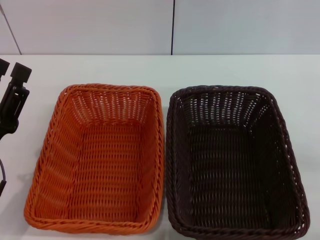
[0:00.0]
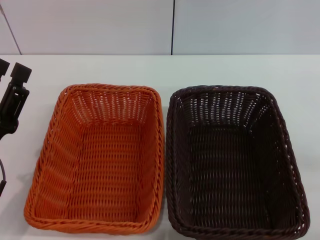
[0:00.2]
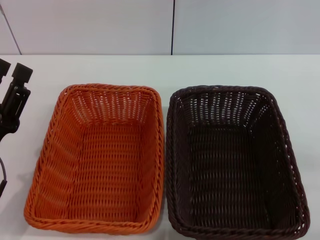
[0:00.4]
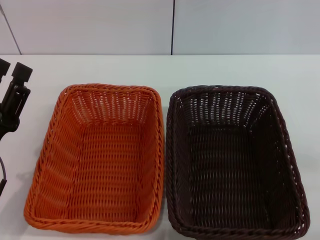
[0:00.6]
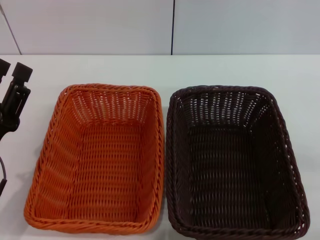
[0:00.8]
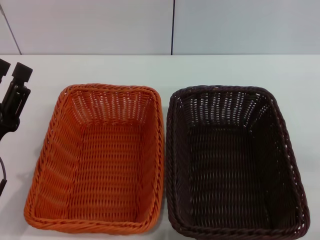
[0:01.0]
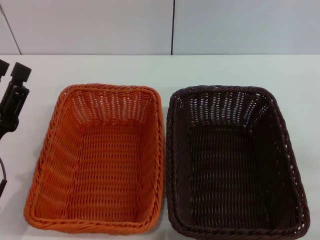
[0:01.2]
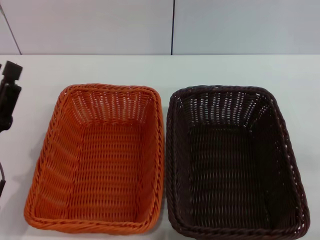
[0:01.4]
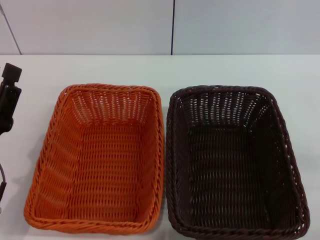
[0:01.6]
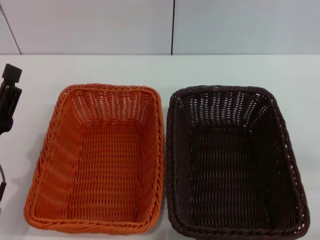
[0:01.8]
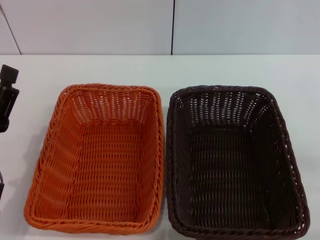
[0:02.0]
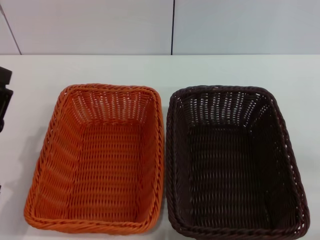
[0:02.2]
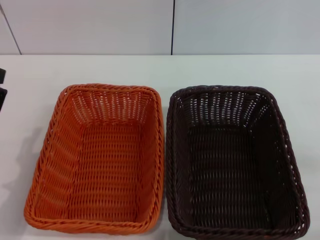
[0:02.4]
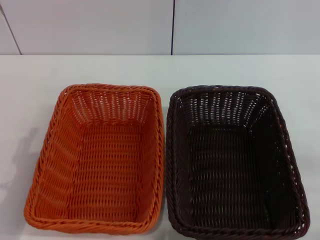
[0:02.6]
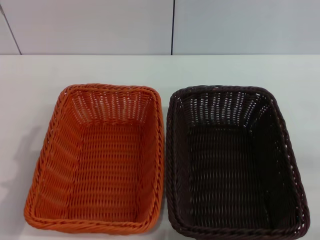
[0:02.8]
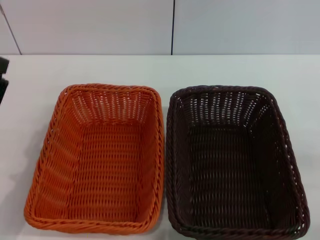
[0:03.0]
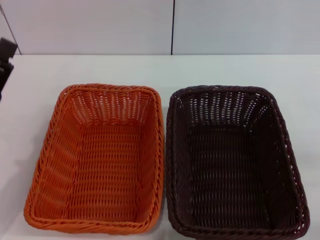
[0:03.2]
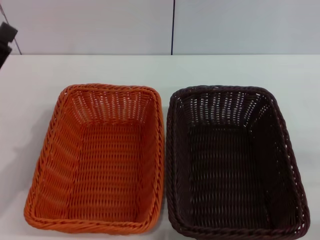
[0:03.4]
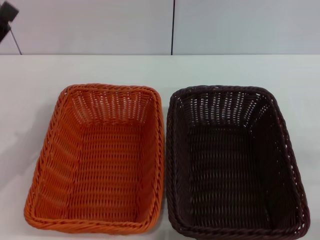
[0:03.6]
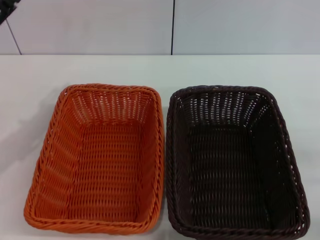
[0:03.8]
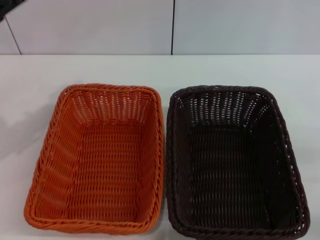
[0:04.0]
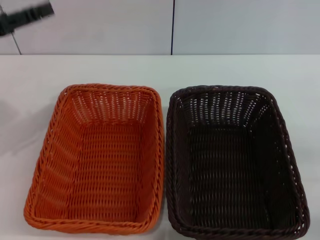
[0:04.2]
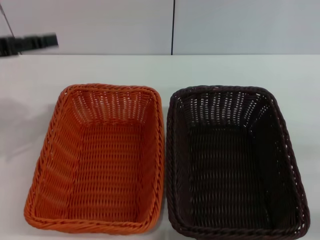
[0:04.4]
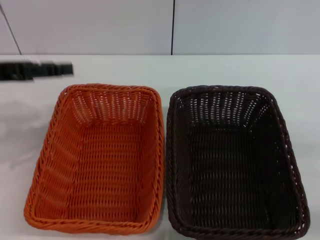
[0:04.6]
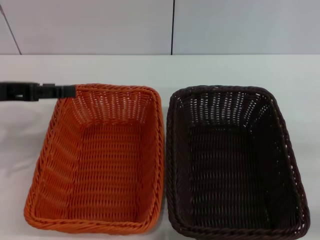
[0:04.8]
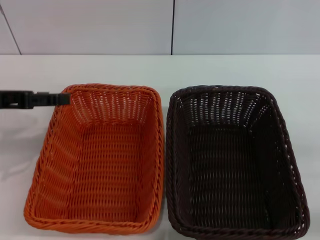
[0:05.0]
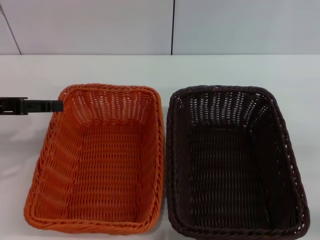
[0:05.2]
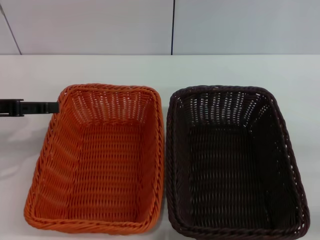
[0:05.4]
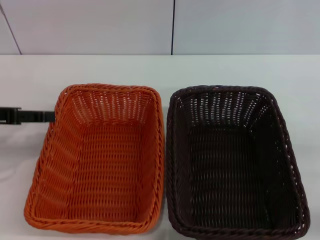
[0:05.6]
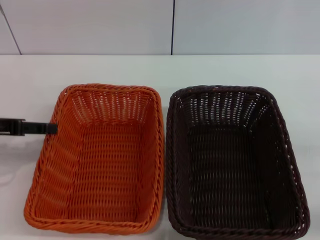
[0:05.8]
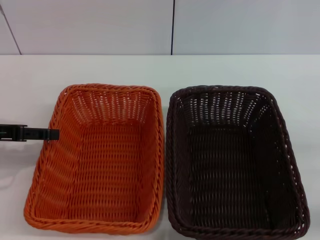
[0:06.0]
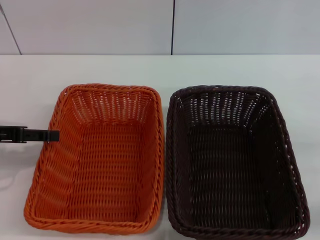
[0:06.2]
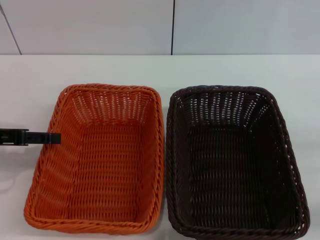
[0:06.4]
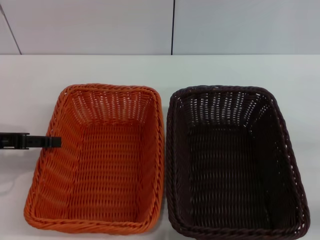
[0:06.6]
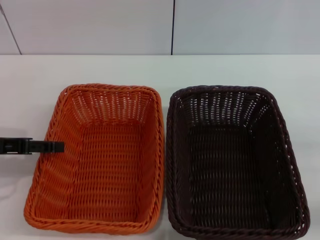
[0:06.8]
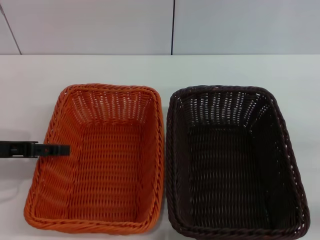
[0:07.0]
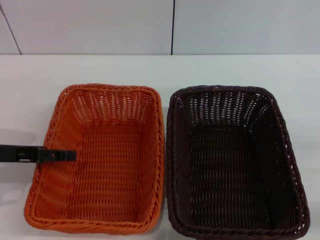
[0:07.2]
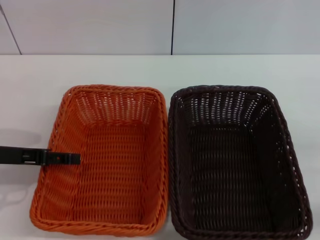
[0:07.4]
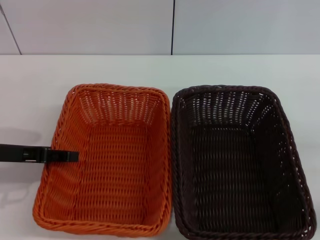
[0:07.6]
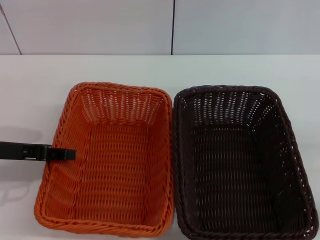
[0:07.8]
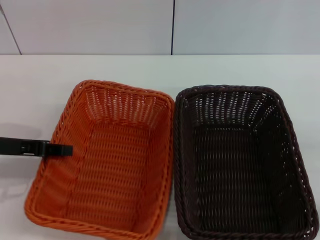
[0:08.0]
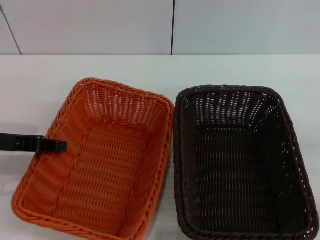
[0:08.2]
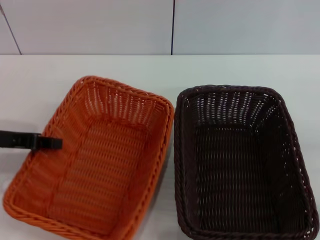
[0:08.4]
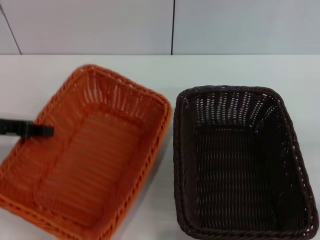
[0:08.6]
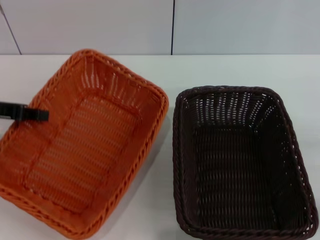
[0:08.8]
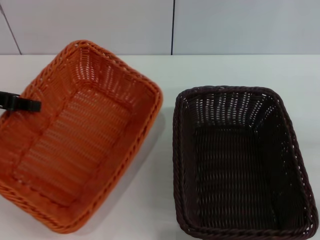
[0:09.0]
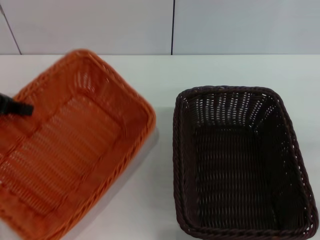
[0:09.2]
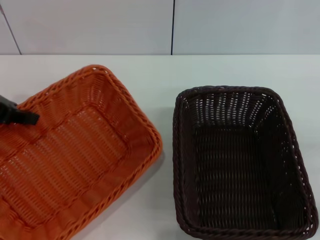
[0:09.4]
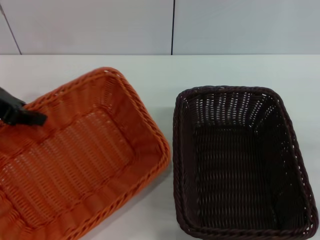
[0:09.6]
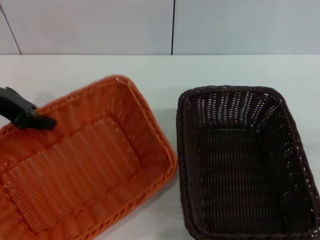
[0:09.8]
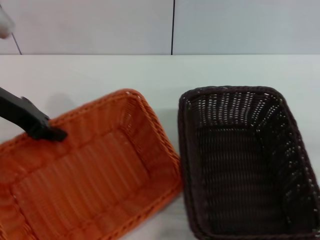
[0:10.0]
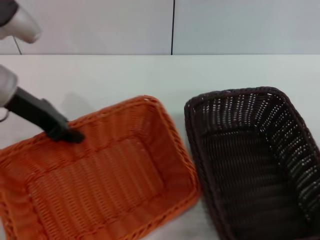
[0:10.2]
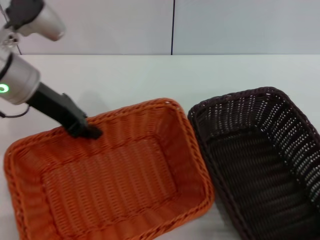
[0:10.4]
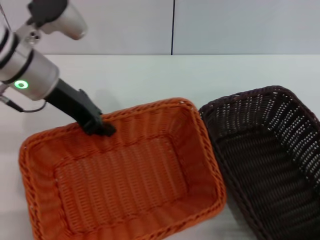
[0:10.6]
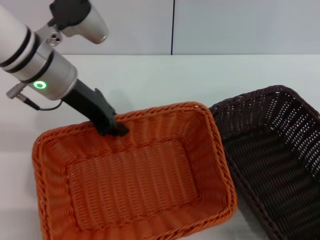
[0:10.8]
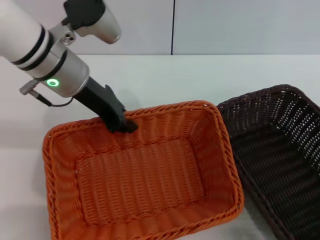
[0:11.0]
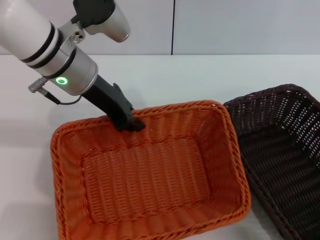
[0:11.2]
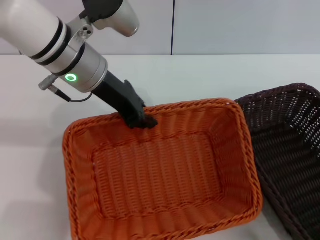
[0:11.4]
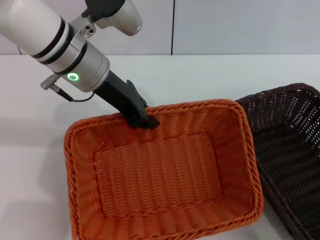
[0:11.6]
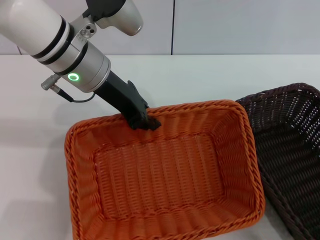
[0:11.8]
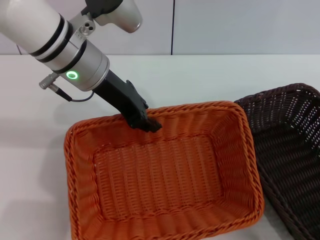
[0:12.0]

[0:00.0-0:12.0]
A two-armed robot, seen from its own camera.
Step, 0:00.0 to 0:08.2: Pick up the light basket with the left gripper.
0:00.0 to 0:03.0: The grippers stay close to where they were, moving slightly.
0:03.0 to 0:04.4: The left gripper travels upward and forward by some 20 cm.
0:04.4 to 0:06.0: The left gripper is displaced downward by roughly 5 cm.
0:06.0 to 0:07.6: The grippers move only a little.
0:07.6 to 0:09.0: The left gripper heads upward, covering approximately 5 cm, and closes its fingers.
0:09.0 to 0:10.4: The left gripper is displaced to the right by about 10 cm.
0:10.4 to 0:12.0: The left gripper travels to the right by some 10 cm.

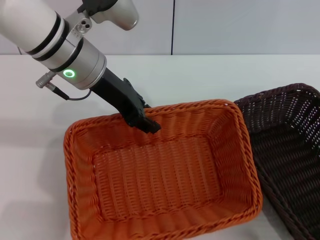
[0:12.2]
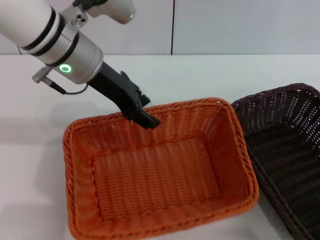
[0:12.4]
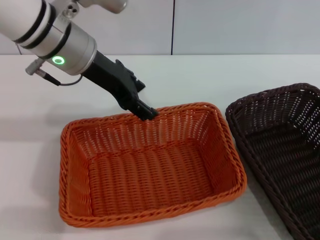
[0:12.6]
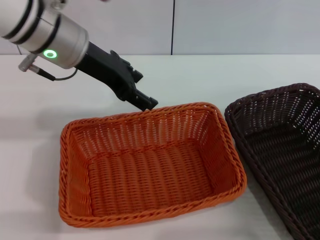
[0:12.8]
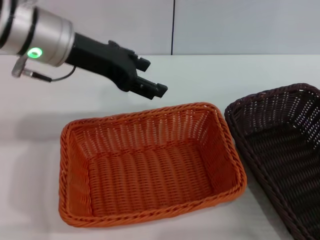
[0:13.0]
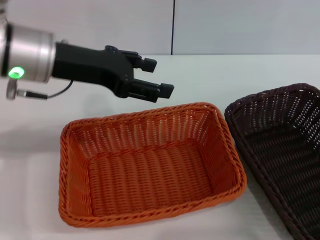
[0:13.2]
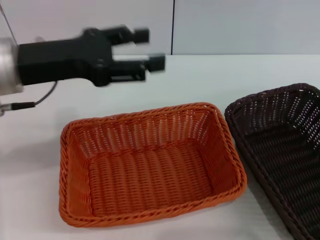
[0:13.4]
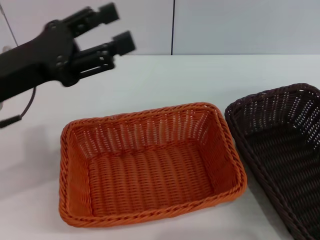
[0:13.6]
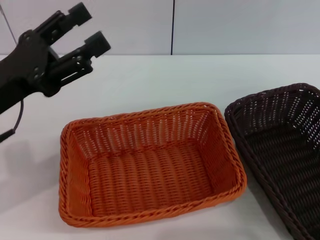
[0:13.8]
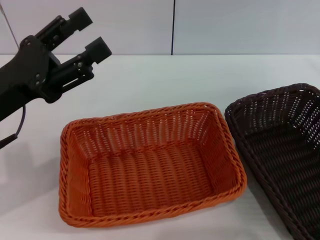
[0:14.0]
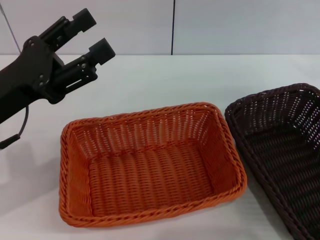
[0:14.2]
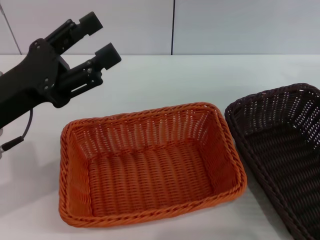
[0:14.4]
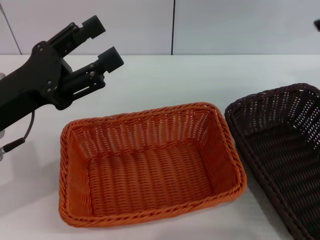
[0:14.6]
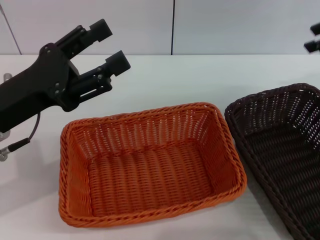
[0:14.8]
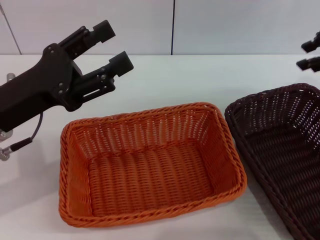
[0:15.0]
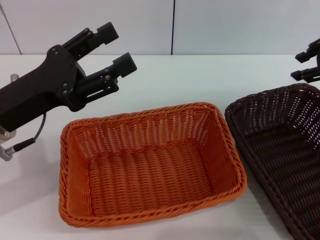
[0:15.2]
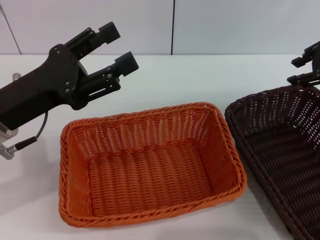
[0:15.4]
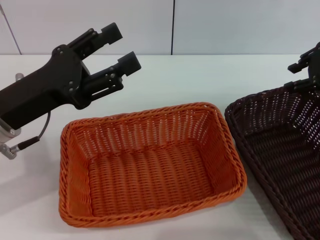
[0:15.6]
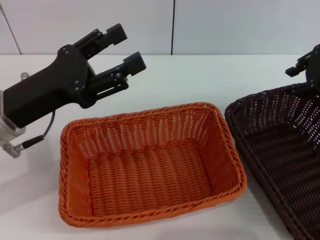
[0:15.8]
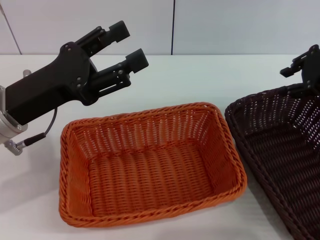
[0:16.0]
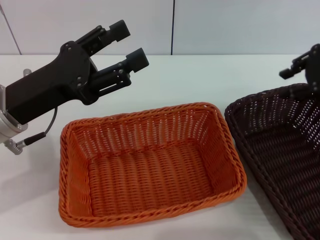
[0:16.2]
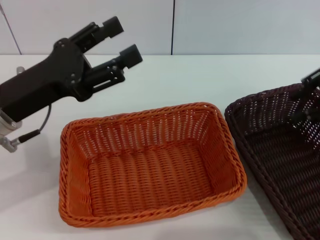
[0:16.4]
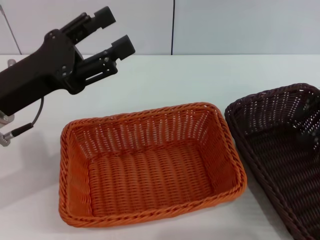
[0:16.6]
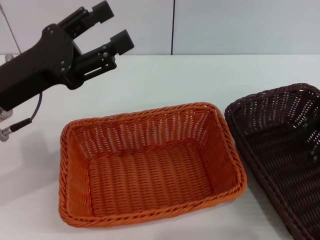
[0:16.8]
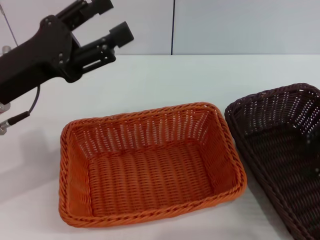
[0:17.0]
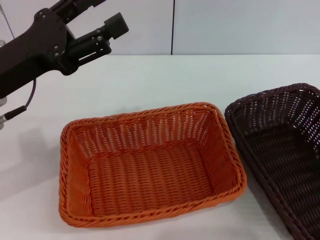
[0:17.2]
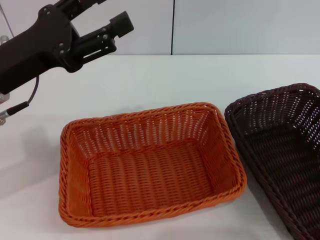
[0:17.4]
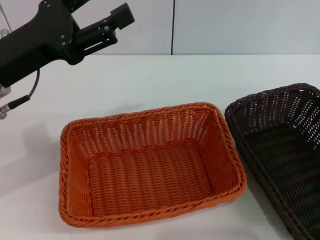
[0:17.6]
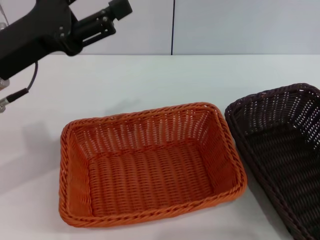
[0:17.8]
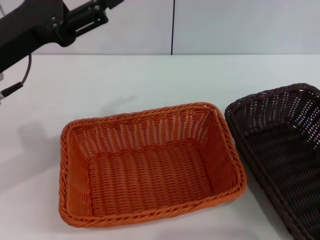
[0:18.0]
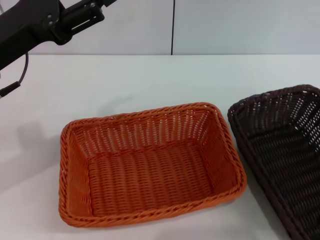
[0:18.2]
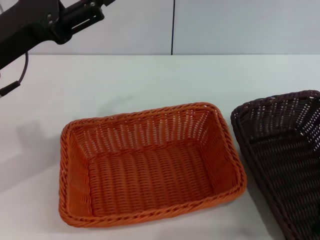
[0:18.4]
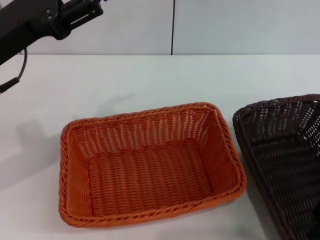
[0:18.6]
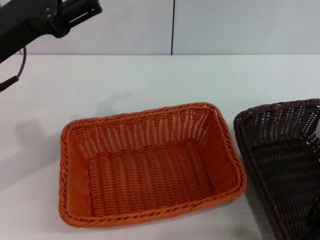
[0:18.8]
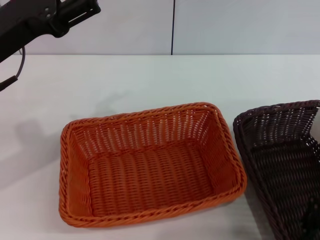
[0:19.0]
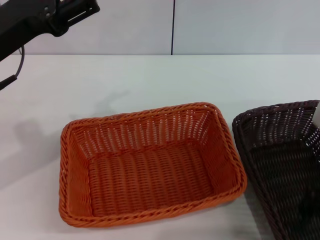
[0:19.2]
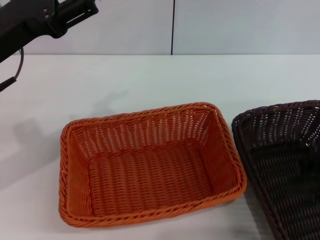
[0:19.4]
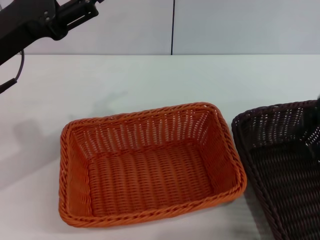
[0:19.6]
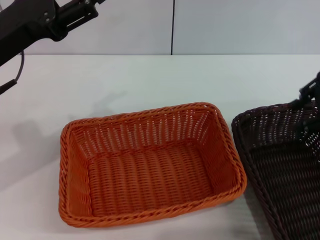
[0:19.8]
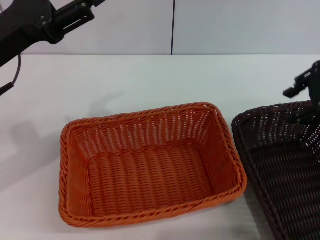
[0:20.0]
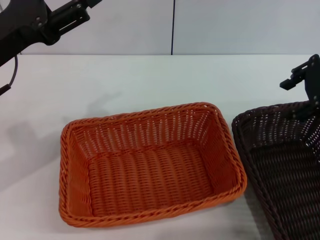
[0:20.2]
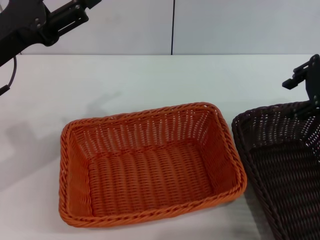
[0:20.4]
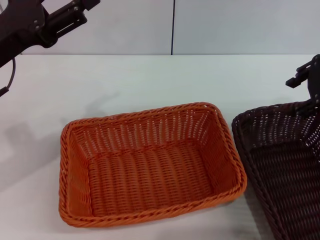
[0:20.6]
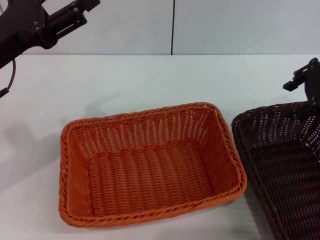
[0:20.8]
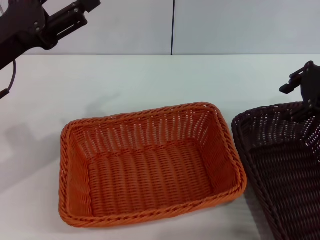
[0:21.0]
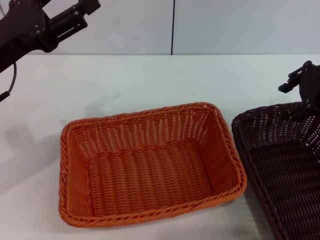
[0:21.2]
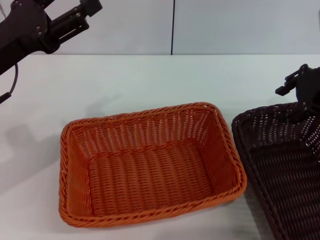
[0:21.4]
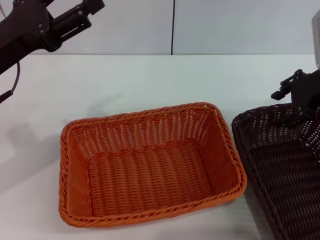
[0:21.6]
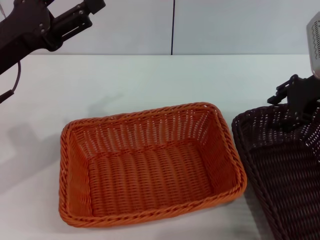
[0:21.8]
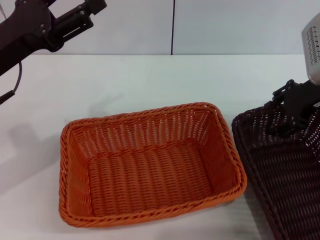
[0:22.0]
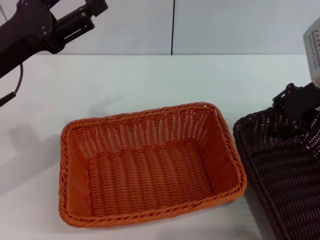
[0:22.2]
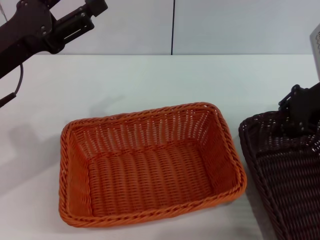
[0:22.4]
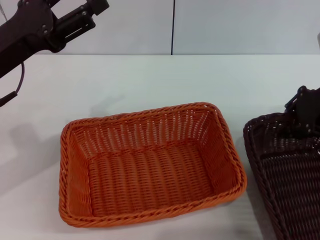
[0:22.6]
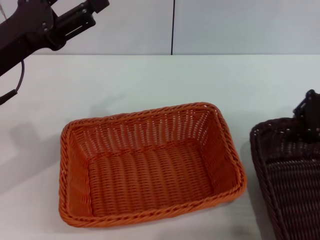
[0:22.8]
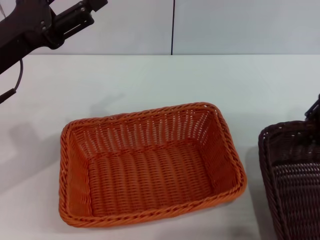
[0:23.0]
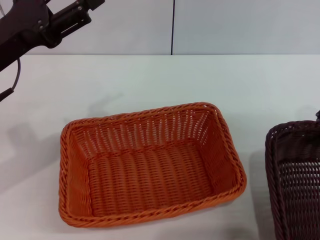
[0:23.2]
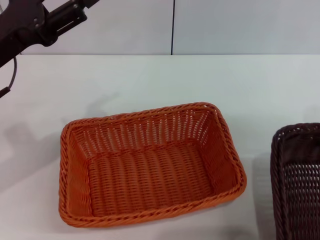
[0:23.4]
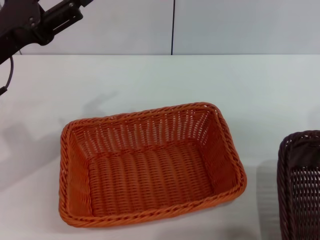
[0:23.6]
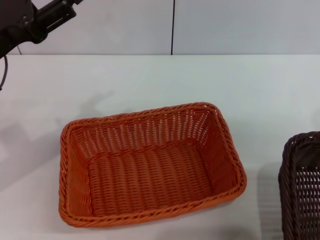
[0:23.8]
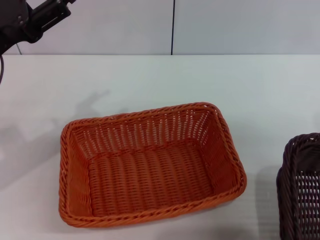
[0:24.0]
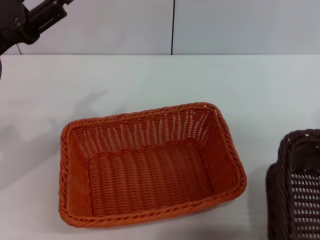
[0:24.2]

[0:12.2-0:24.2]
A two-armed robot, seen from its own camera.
Step, 0:12.6 to 0:23.4: Pick up the dark basket with the right gripper.
0:12.2 to 0:13.8: The right gripper is displaced upward and forward by roughly 30 cm; the left gripper travels backward and to the left by some 15 cm, and opens up.
0:13.8 to 0:15.2: The right gripper goes about 15 cm to the left, downward and forward.
0:15.2 to 0:16.6: The right gripper travels backward by some 10 cm.
0:16.6 to 0:18.2: The right gripper shifts some 5 cm backward.
0:18.2 to 0:19.8: The right gripper heads forward and upward, covering approximately 10 cm.
0:19.8 to 0:21.2: The right gripper moves roughly 5 cm, and opens up.
0:21.2 to 0:22.6: The right gripper closes up.
0:22.6 to 0:24.2: The right gripper heads upward, to the right and backward, covering some 10 cm, and closes.
